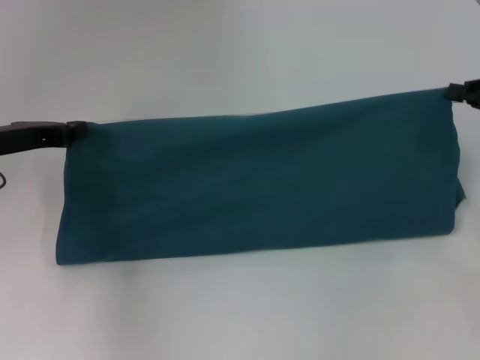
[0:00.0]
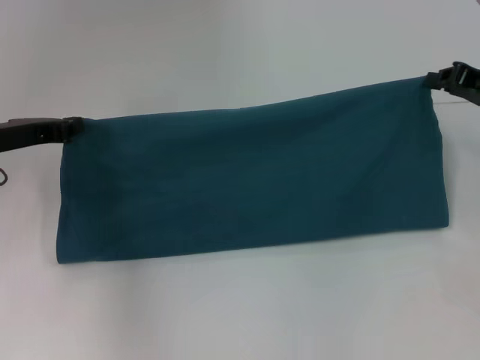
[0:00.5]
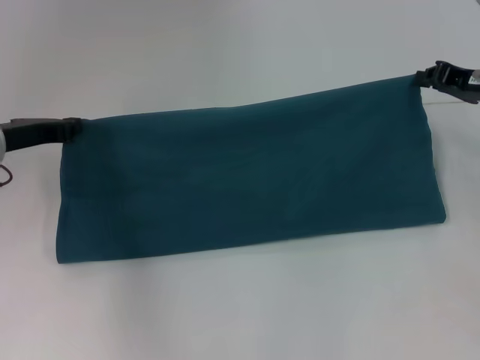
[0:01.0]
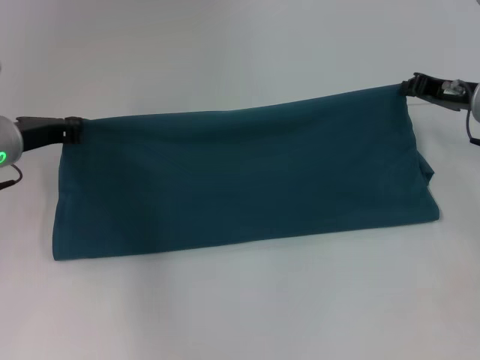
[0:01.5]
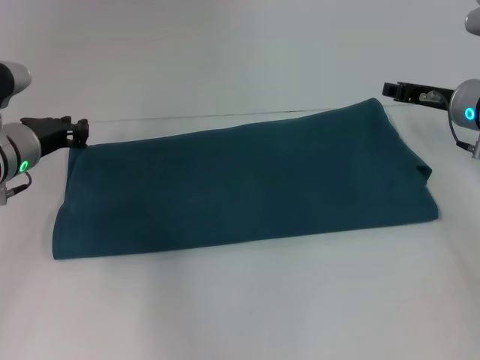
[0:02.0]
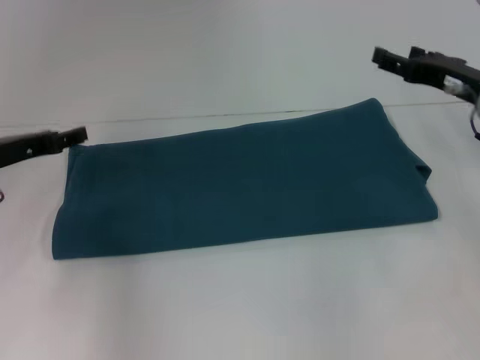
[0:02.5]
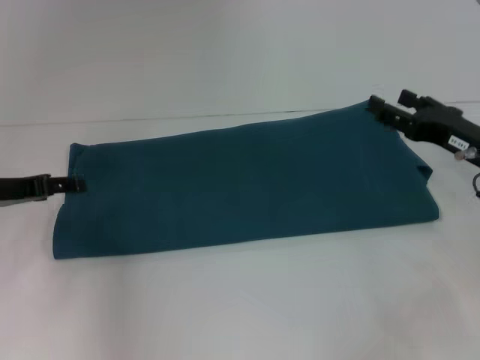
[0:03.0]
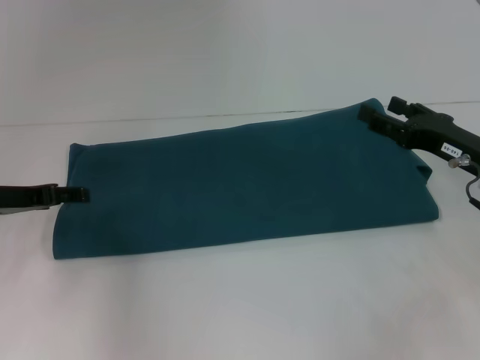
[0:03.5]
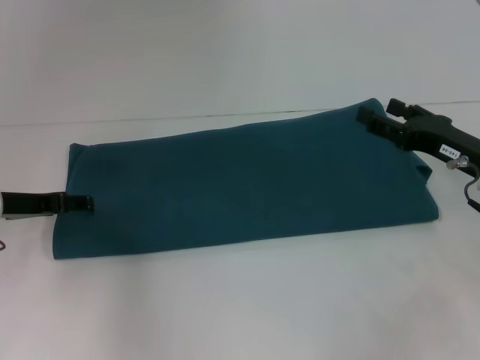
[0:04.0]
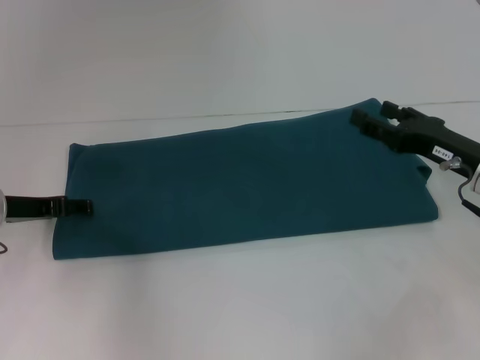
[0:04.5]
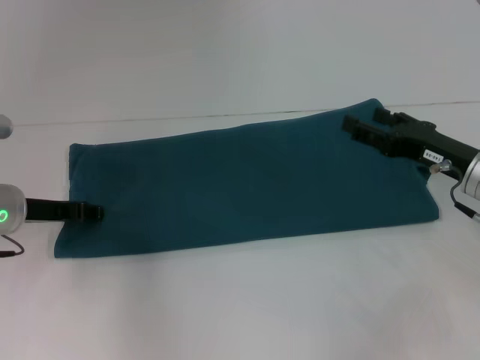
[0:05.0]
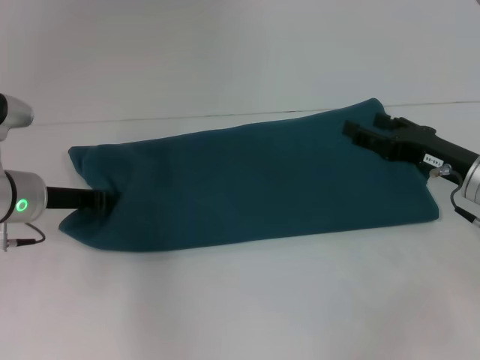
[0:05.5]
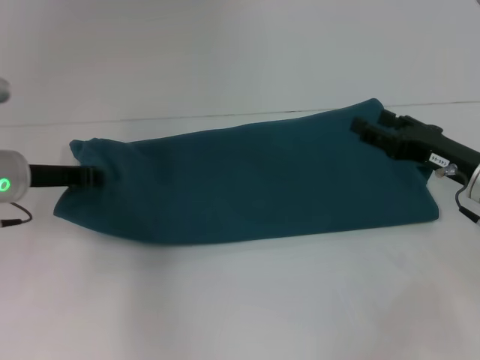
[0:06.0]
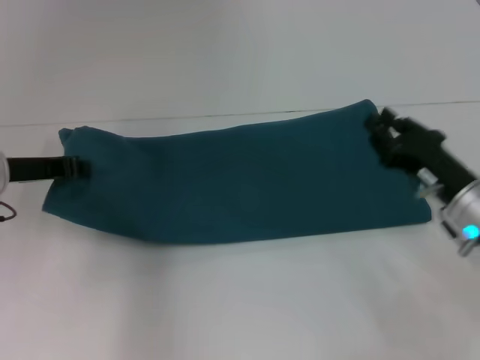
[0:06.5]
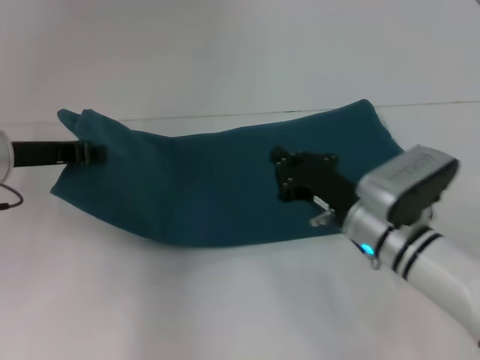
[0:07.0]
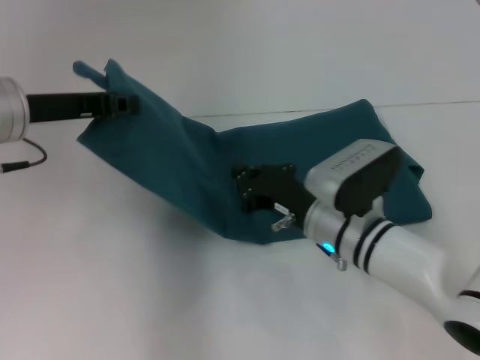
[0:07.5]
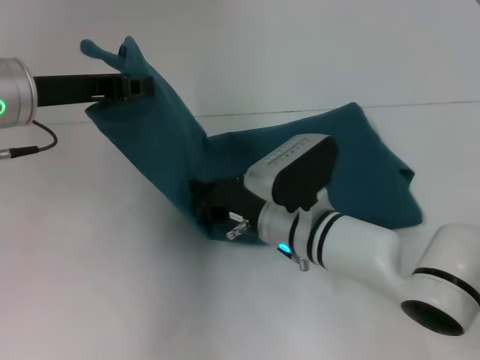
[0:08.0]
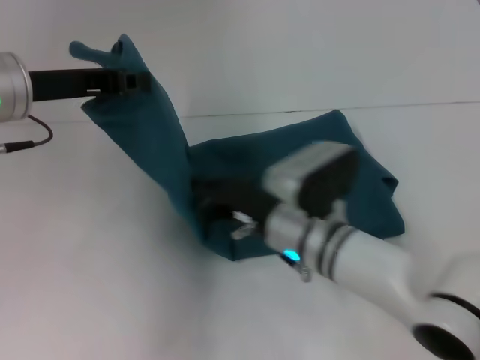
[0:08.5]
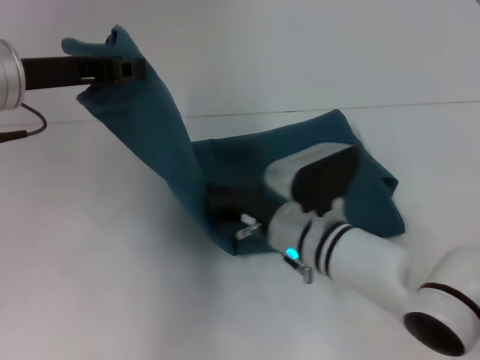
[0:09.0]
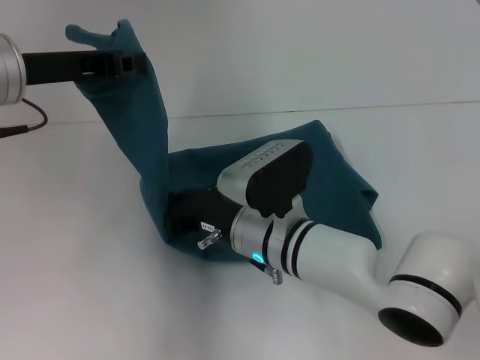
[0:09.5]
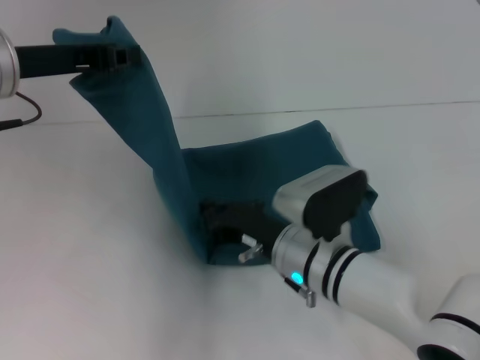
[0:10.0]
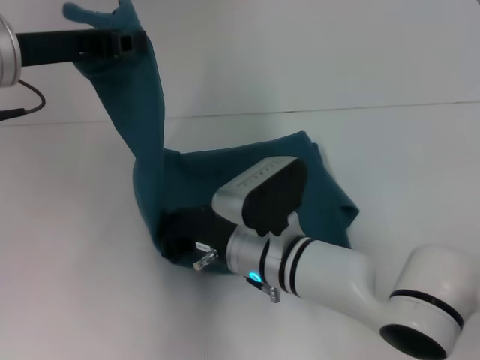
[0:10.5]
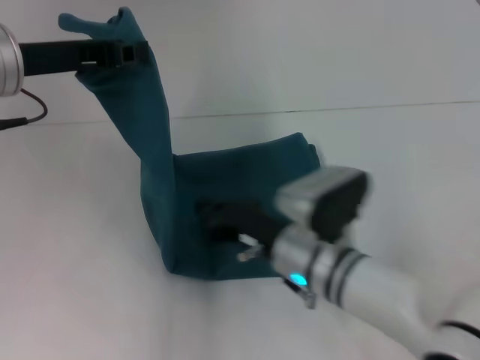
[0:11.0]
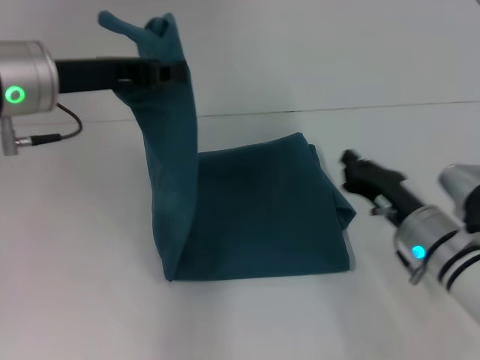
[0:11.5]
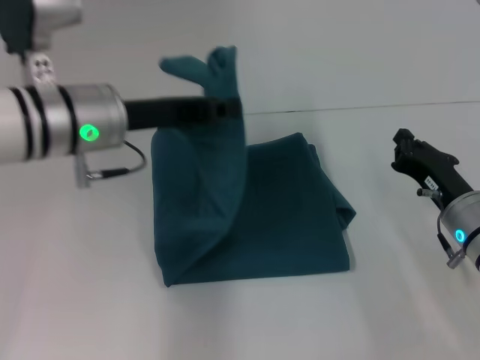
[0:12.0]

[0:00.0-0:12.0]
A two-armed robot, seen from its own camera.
Step, 0:02.0 to 0:10.5: Press the middle of the clothes with your right hand.
0:00.0 to 0:02.0: The right gripper is displaced to the left and forward by some 10 cm, while the left gripper ends up some 5 cm from where it was.
0:02.0 to 0:04.0: The left gripper ends up approximately 5 cm from where it was, and opens up; the right gripper heads backward, covering roughly 10 cm, and opens.
0:04.0 to 0:06.0: The left gripper closes.
0:06.0 to 0:08.0: The right gripper heads to the left, covering about 20 cm, and closes up, while the left gripper goes approximately 10 cm upward.
0:10.0 to 0:12.0: The left gripper goes some 10 cm to the right and downward, while the right gripper moves to the right, about 15 cm.

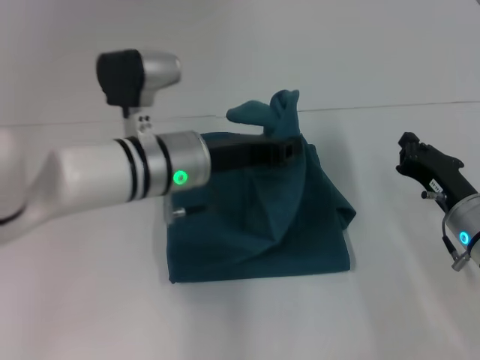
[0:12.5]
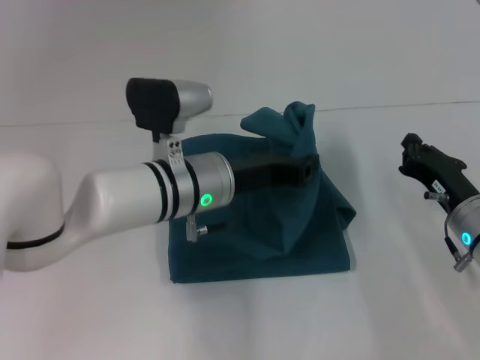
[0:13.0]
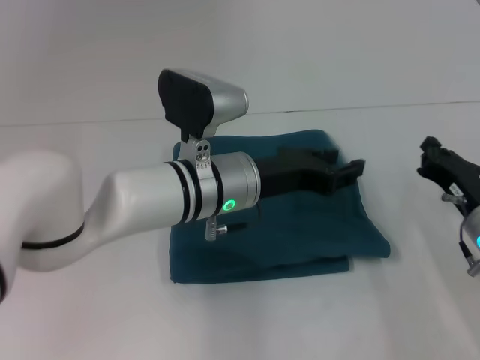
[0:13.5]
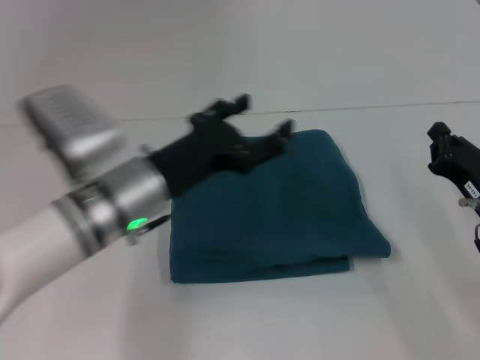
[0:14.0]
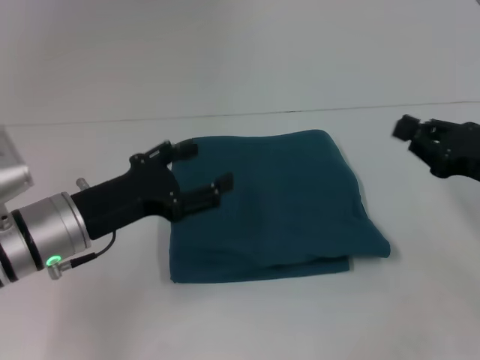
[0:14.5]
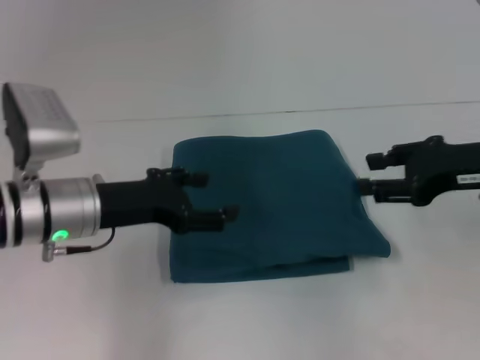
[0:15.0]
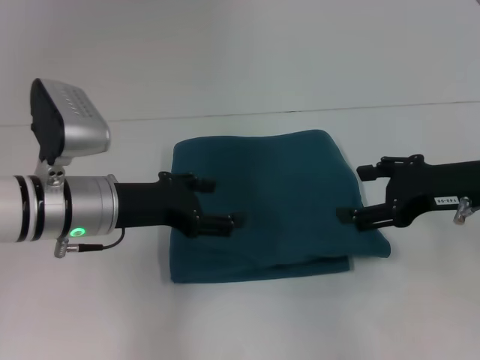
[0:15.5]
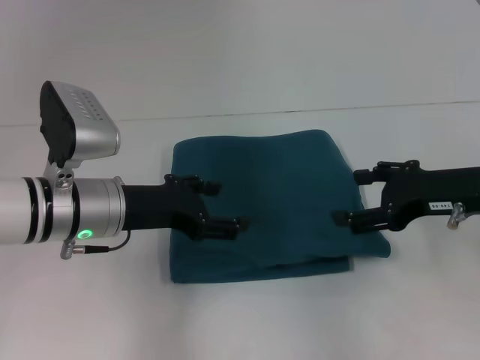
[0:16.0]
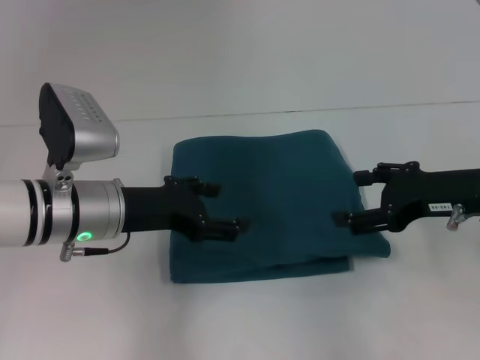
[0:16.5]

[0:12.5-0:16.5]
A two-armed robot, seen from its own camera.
0:12.5 to 0:14.5: The right gripper shifts about 10 cm upward and to the right; the left gripper shifts approximately 15 cm to the left and backward, and opens.
0:14.5 to 0:16.5: The right gripper moves to the left, roughly 5 cm, and opens its fingers.

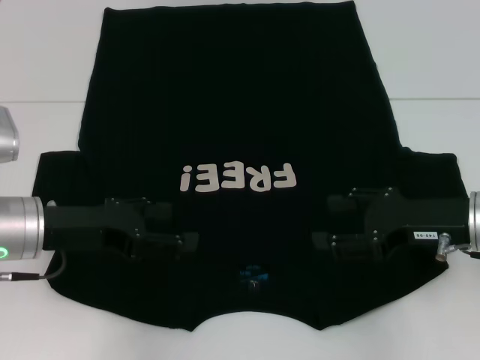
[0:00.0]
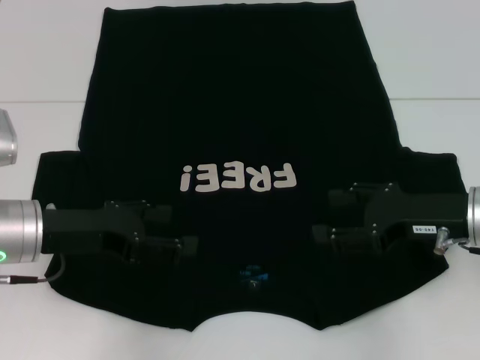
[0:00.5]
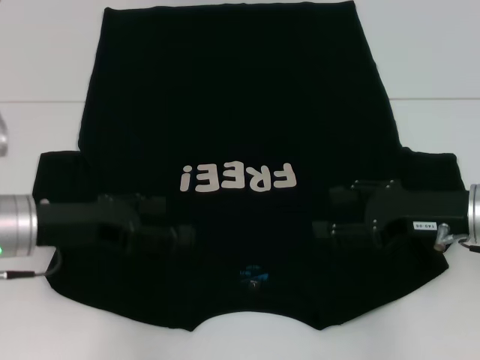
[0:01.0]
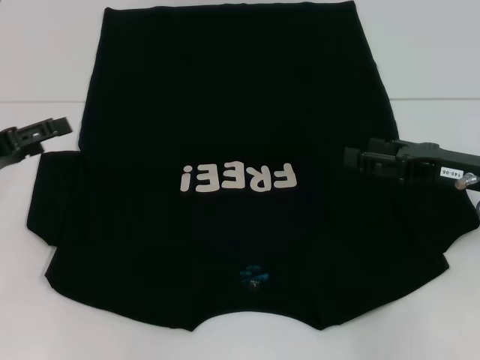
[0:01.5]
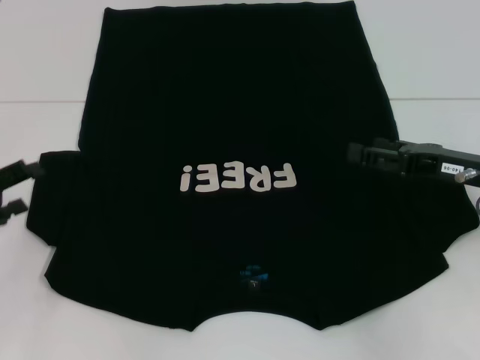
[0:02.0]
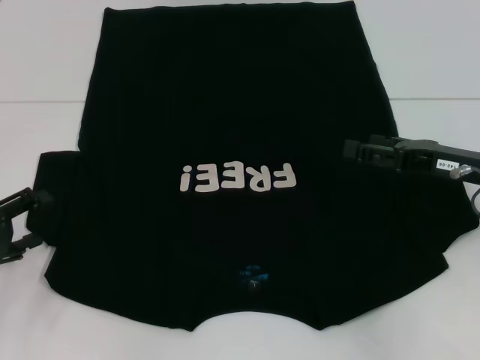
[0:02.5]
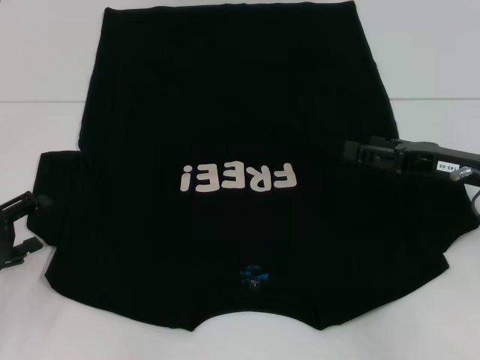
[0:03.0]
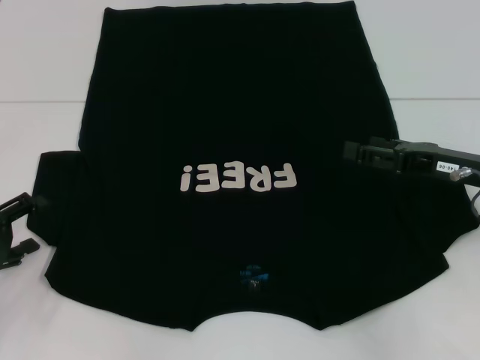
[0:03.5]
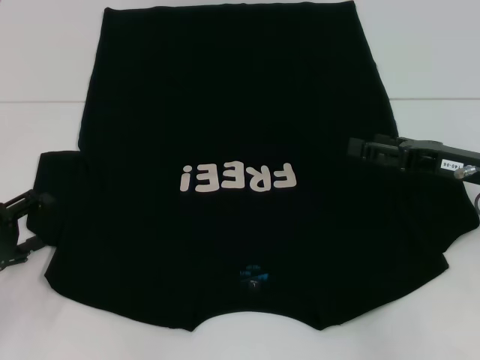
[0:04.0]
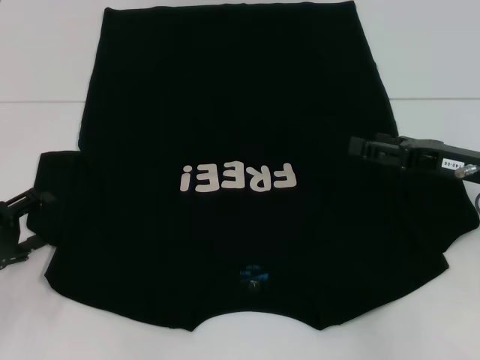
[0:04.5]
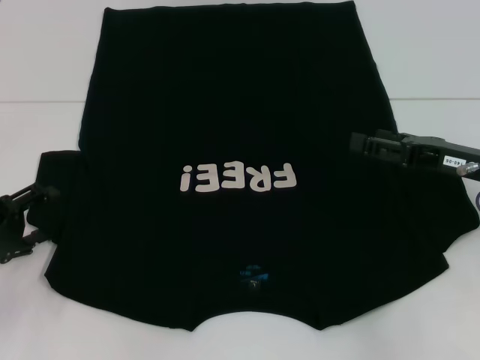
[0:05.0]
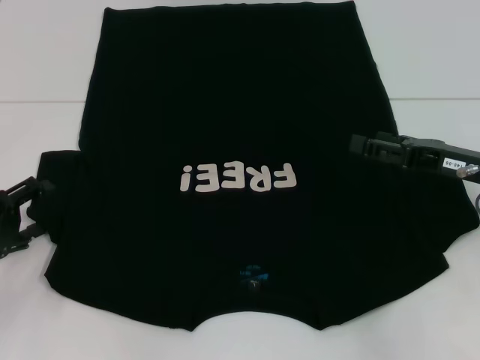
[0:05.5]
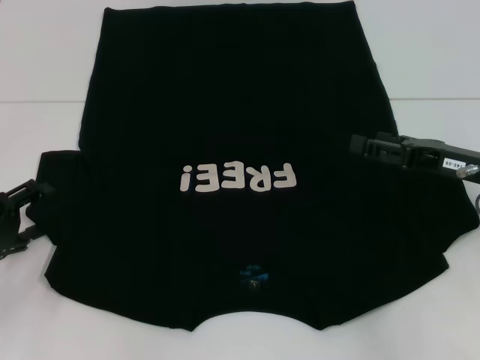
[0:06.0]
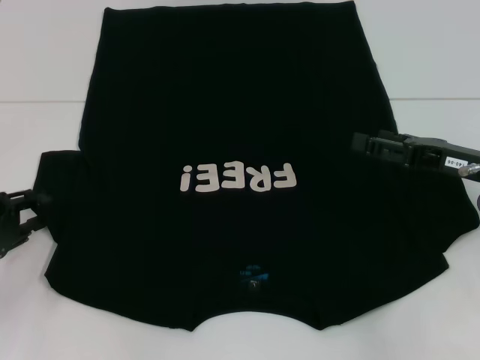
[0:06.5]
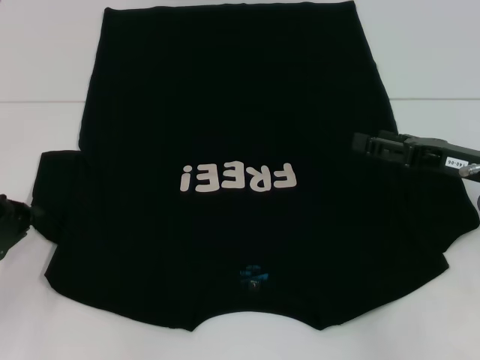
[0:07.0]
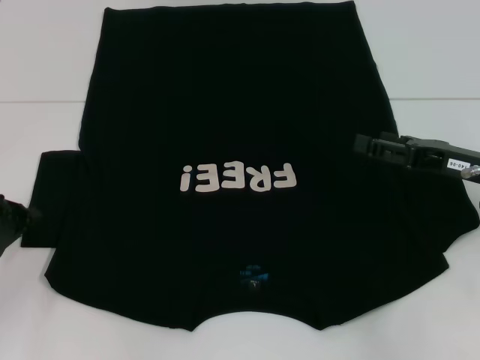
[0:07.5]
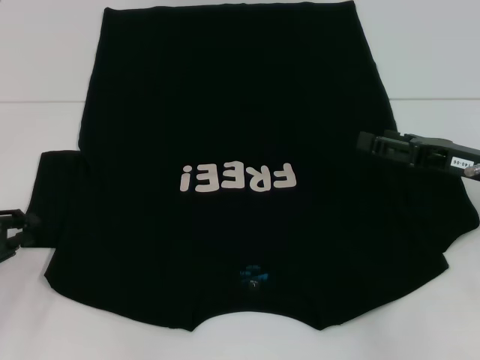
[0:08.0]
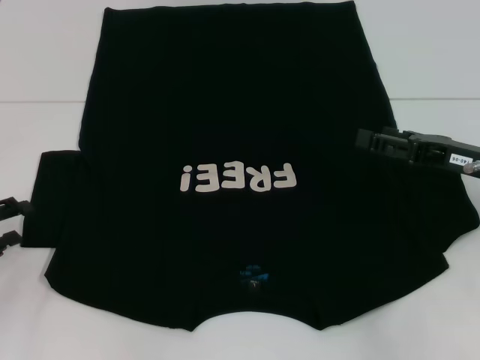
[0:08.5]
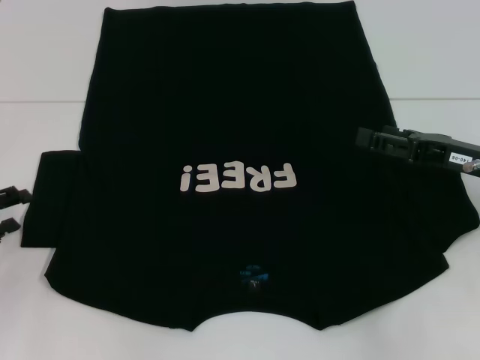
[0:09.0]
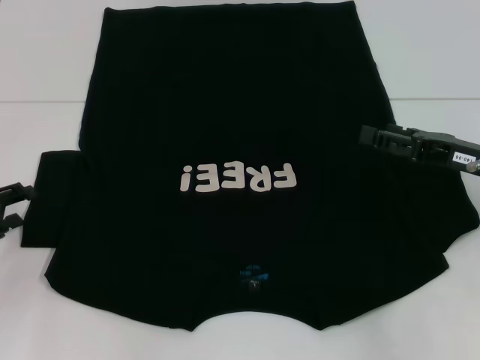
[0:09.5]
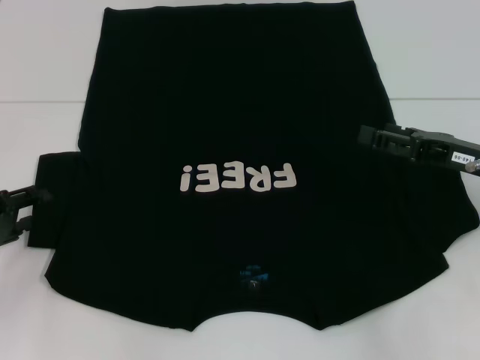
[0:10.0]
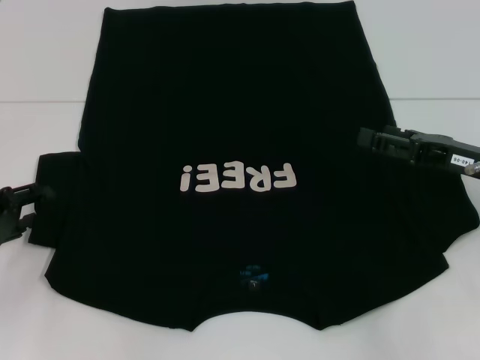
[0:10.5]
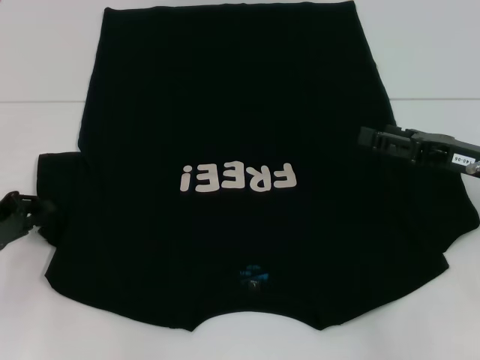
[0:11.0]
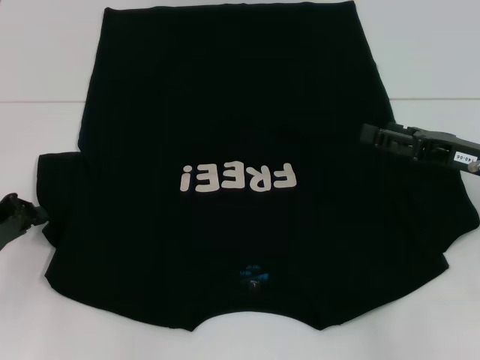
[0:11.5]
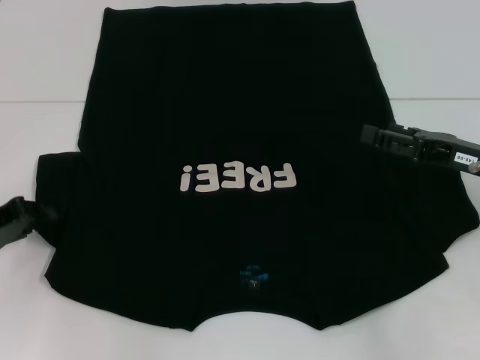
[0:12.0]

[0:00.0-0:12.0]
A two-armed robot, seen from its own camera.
0:00.0 to 0:02.0: The left gripper heads to the left, covering approximately 10 cm.
0:02.0 to 0:04.0: The grippers stay close to where they were, moving slightly.
0:04.0 to 0:06.0: The two grippers keep their place.
0:06.0 to 0:08.0: The left gripper closes its fingers.
0:08.0 to 0:10.0: The left gripper opens its fingers.
0:10.0 to 0:12.0: The left gripper closes its fingers.
